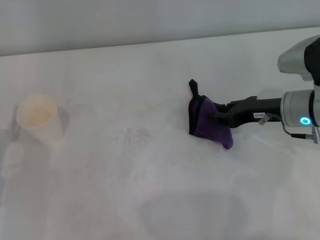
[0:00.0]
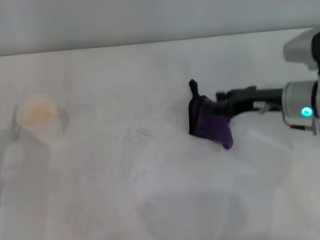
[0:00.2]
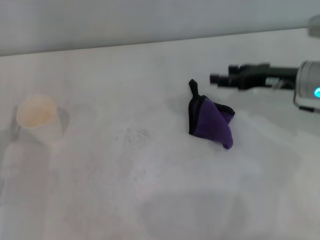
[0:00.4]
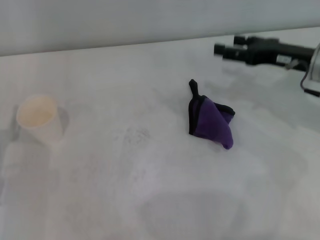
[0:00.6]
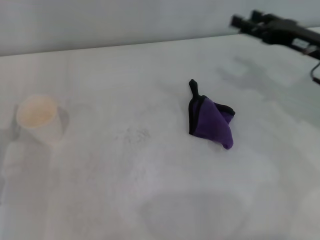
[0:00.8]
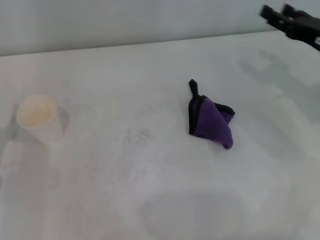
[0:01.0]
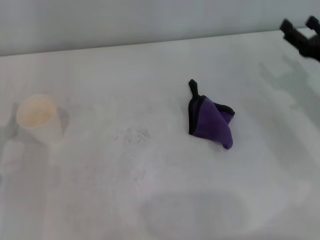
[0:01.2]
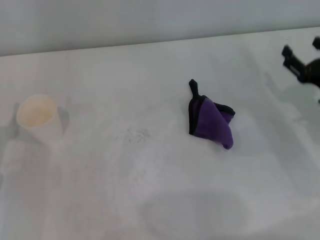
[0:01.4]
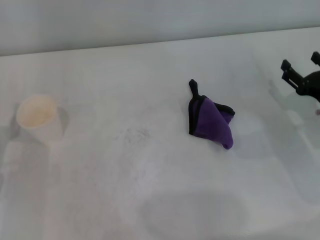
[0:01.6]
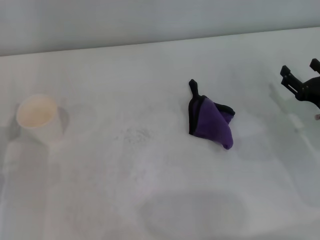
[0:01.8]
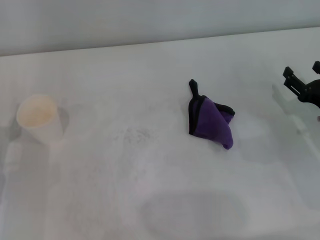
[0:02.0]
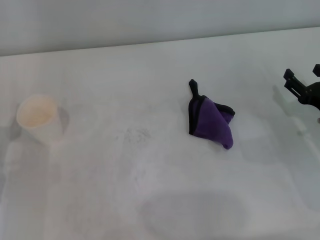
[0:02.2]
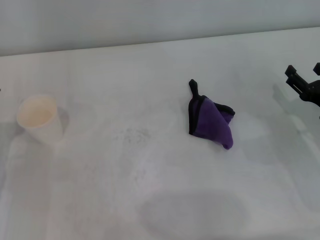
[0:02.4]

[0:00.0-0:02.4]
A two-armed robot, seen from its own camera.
0:00.0 to 0:01.2: The right gripper moves to the right, about 10 cm, and opens.
0:01.2 to 0:02.4: The right gripper ends up roughly 5 cm from where it was.

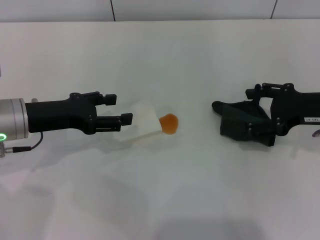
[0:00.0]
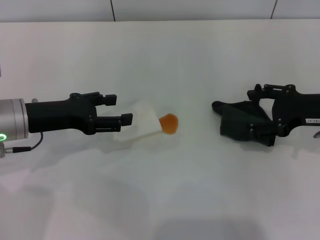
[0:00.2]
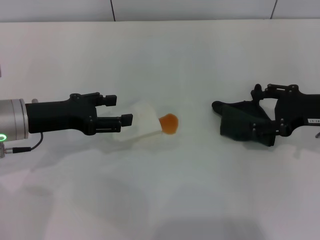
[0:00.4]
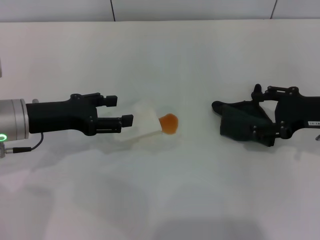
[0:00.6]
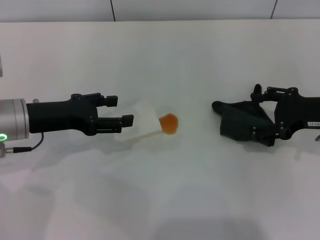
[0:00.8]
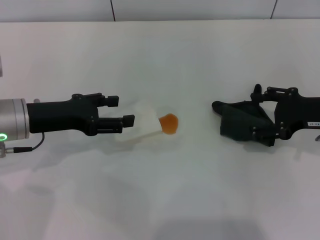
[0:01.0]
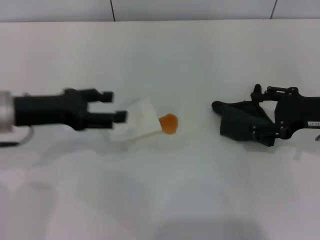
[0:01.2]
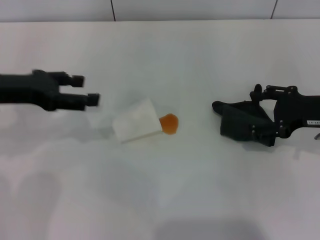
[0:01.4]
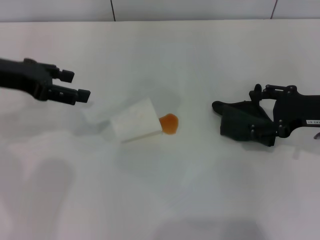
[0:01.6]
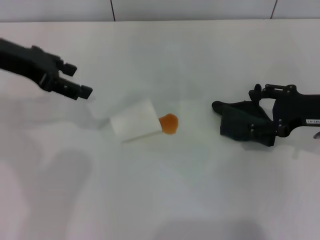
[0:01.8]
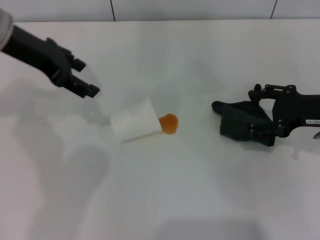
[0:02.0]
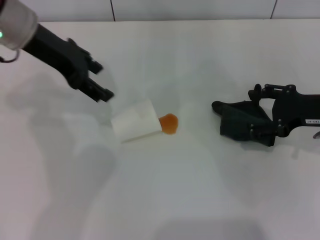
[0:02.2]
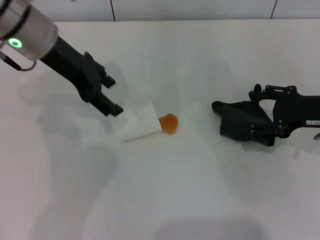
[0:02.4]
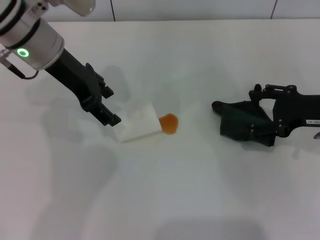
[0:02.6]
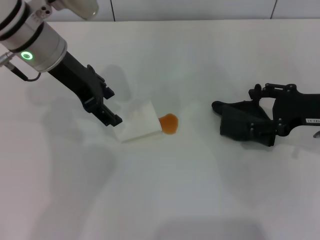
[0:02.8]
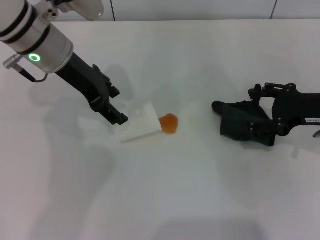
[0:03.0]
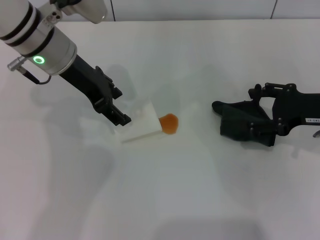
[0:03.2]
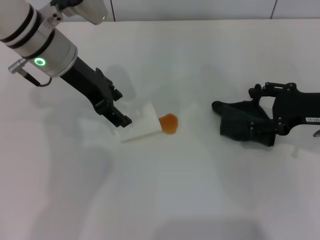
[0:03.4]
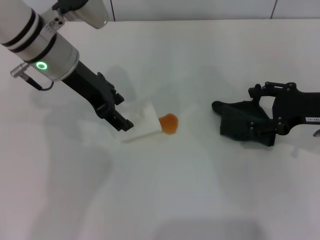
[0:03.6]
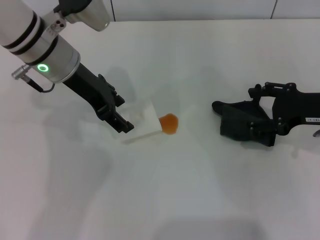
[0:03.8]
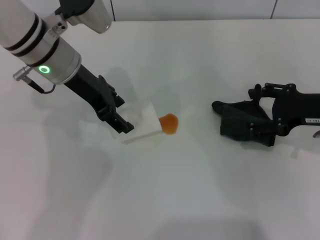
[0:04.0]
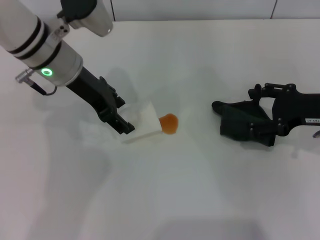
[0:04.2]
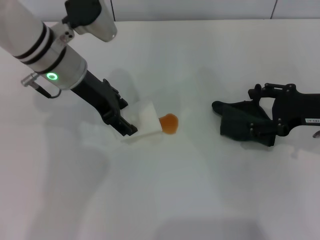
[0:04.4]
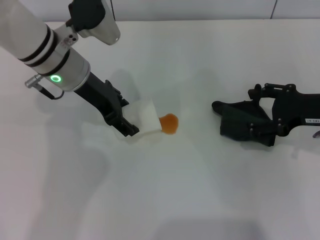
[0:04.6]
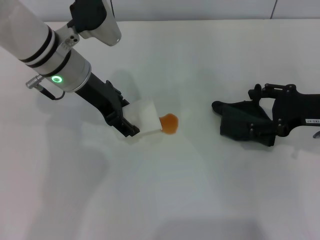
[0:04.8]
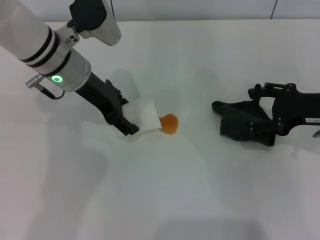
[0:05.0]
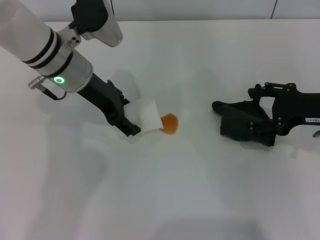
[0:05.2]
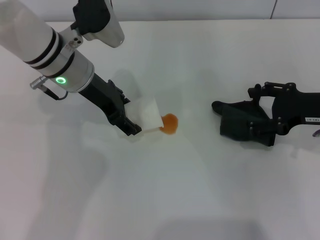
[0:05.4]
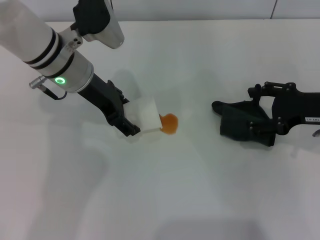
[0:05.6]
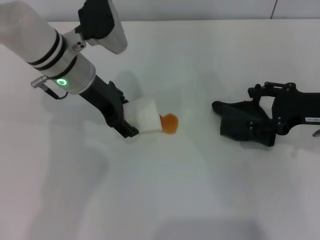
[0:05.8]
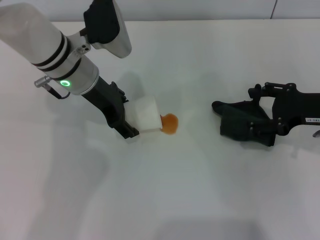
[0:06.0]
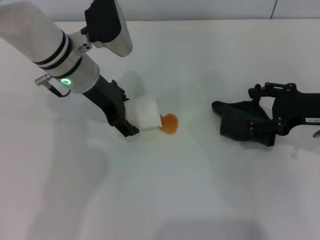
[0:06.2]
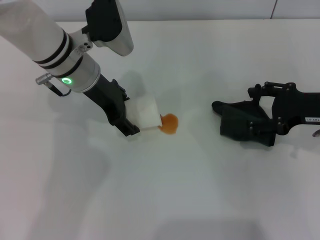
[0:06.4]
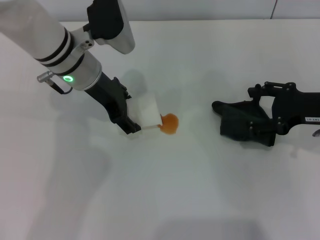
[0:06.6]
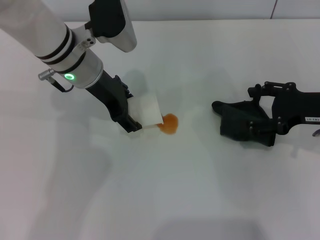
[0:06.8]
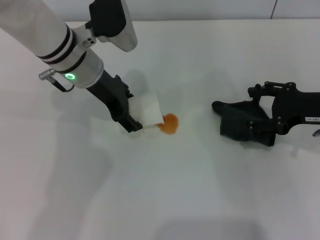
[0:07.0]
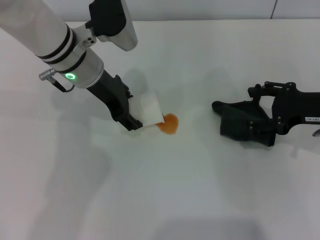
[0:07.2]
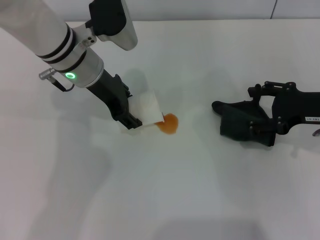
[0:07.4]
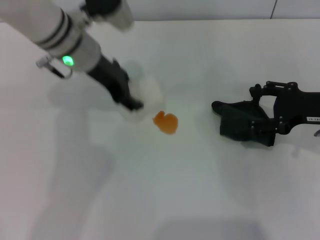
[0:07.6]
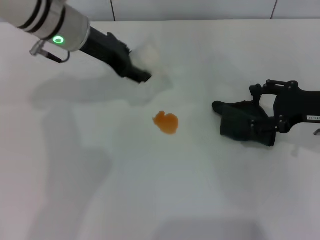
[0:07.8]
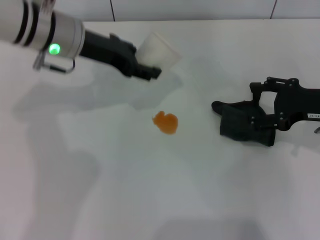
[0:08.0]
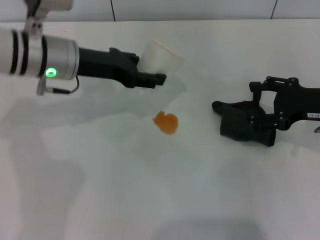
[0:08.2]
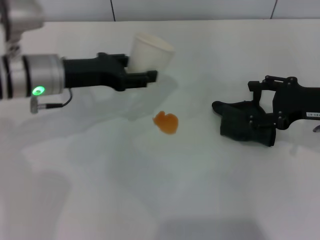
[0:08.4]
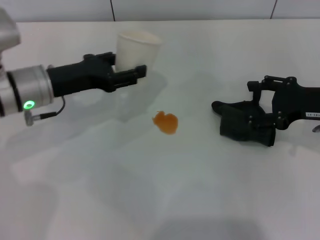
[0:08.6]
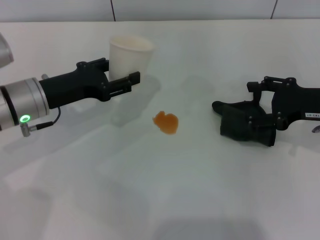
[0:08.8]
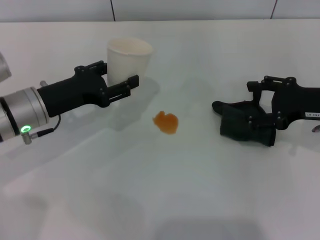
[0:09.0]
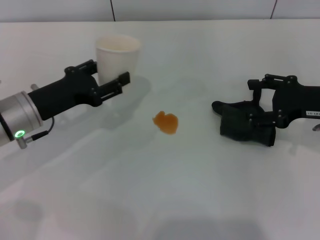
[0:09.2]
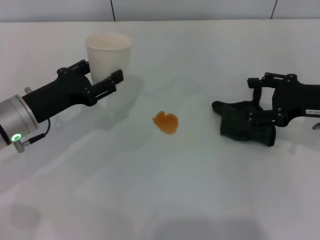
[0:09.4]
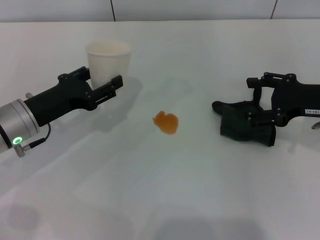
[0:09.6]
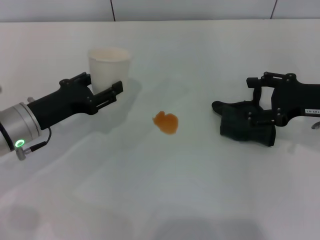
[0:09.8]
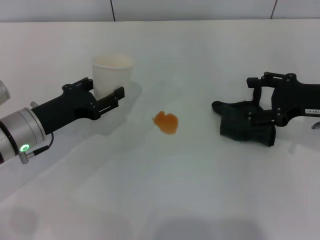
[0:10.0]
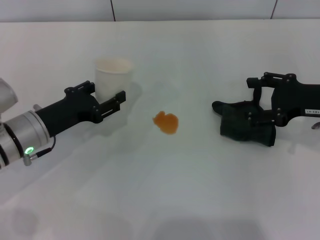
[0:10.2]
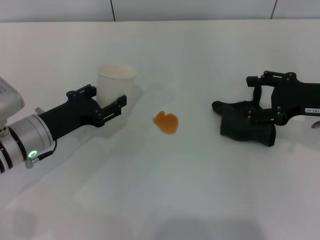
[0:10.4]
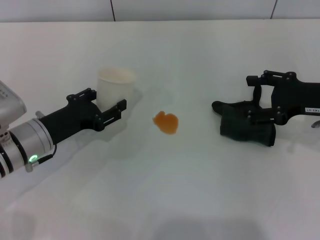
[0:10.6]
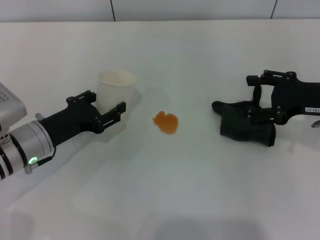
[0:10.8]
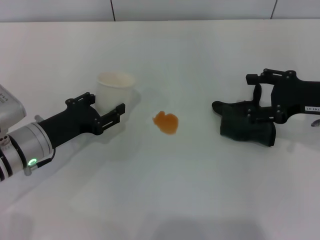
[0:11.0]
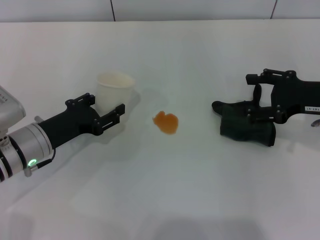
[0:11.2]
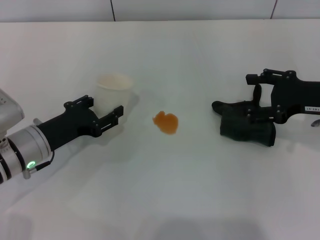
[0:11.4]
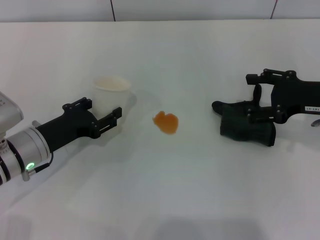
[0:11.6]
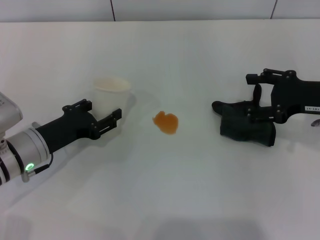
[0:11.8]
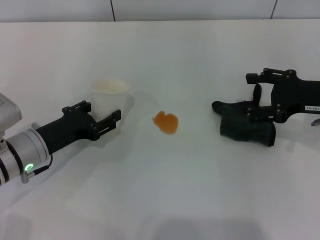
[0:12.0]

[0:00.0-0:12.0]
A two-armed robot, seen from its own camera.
Step, 0:00.0 to 0:07.2: Grasp the paper cup with the left gripper.
0:00.0 to 0:01.6: The left gripper goes about 10 cm upward.
0:01.6 to 0:03.0: The left gripper travels to the right and forward by approximately 15 cm.
0:03.0 to 0:06.0: The grippers move only a little.
0:06.0 to 0:07.6: The left gripper closes up.
0:07.6 to 0:09.0: The left gripper heads to the left, backward and downward, covering some 15 cm.
0:09.0 to 0:10.4: The grippers stay close to where they were, moving slightly.
0:10.4 to 0:12.0: The grippers move only a little.

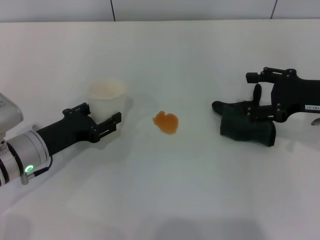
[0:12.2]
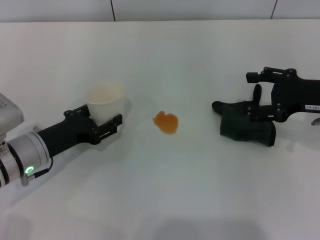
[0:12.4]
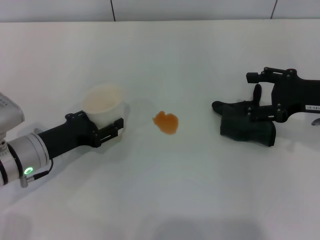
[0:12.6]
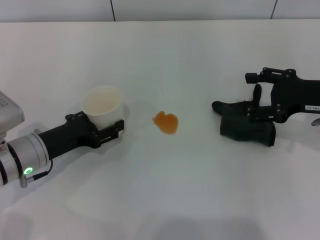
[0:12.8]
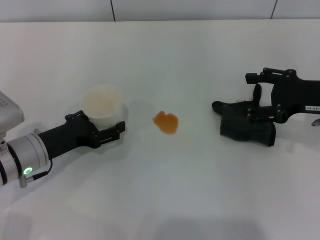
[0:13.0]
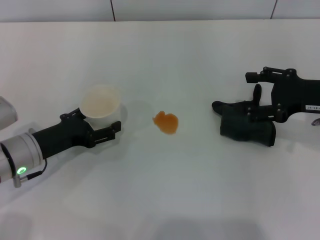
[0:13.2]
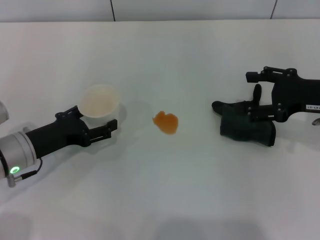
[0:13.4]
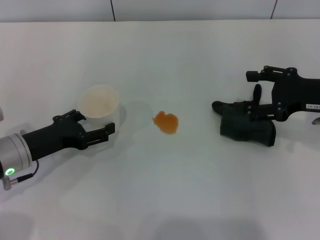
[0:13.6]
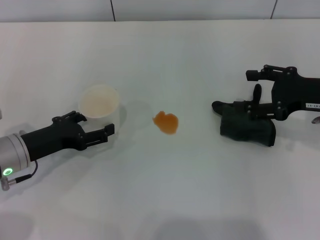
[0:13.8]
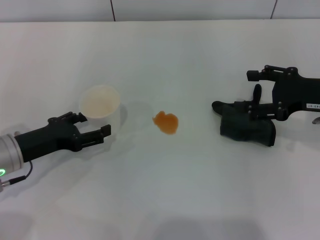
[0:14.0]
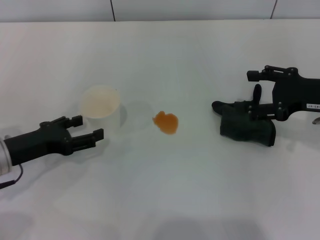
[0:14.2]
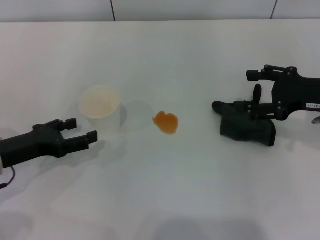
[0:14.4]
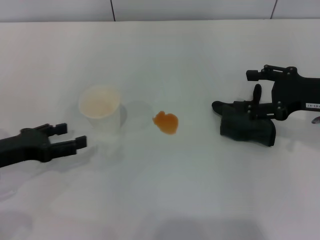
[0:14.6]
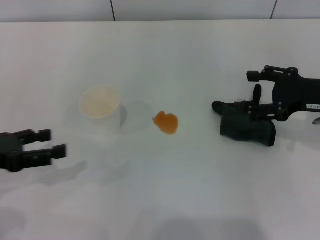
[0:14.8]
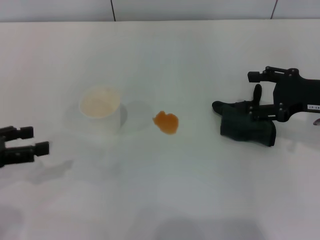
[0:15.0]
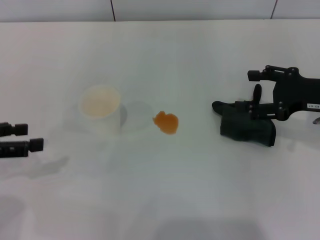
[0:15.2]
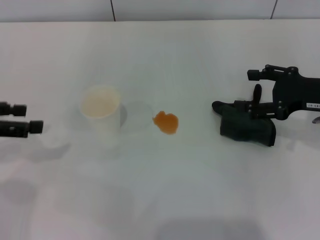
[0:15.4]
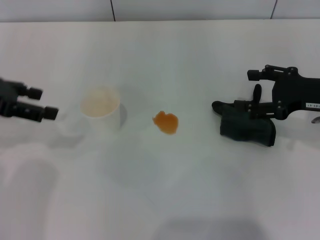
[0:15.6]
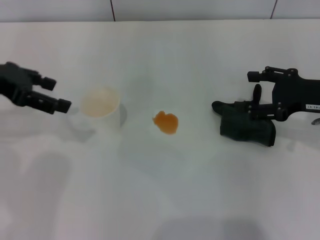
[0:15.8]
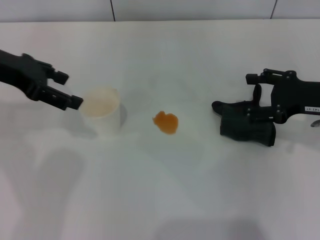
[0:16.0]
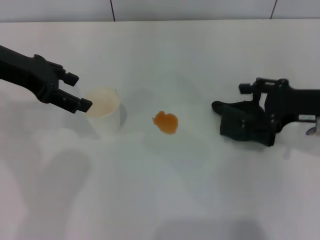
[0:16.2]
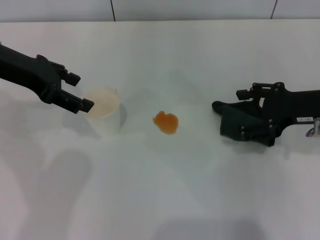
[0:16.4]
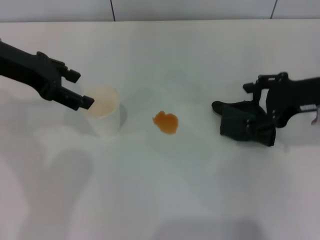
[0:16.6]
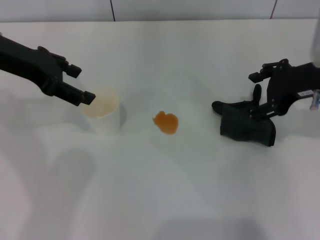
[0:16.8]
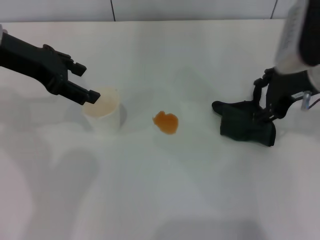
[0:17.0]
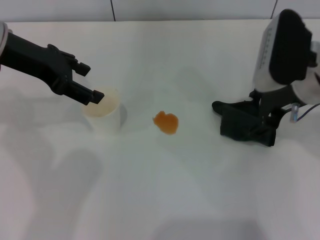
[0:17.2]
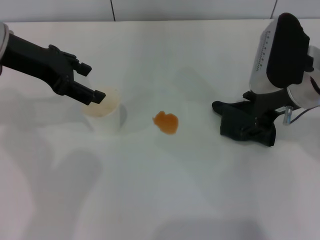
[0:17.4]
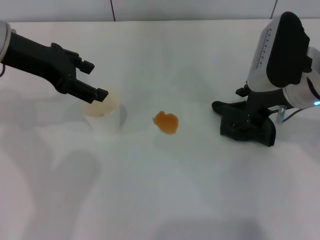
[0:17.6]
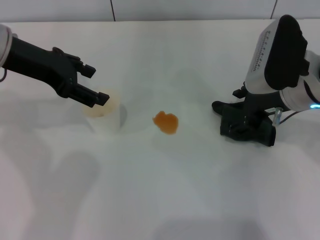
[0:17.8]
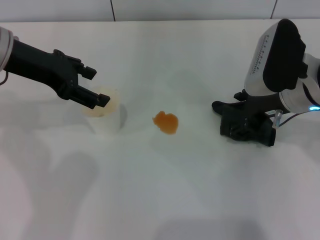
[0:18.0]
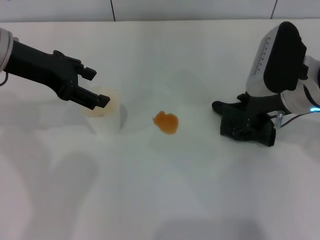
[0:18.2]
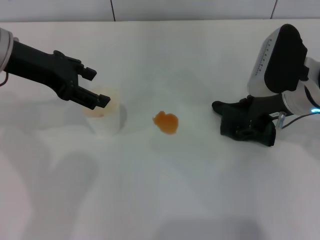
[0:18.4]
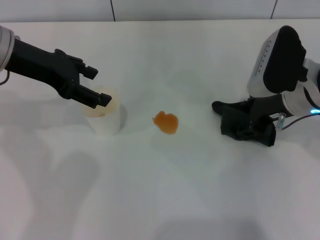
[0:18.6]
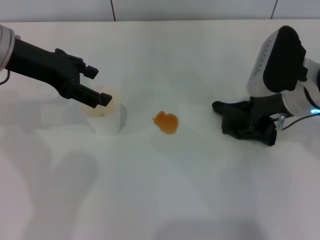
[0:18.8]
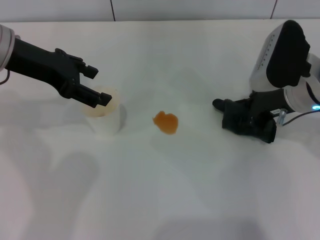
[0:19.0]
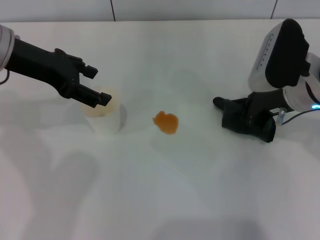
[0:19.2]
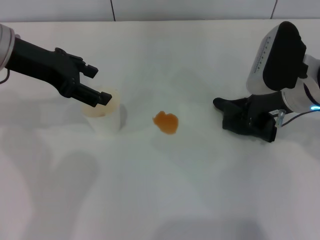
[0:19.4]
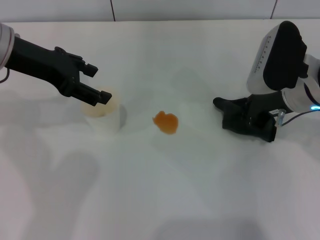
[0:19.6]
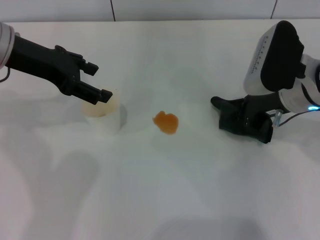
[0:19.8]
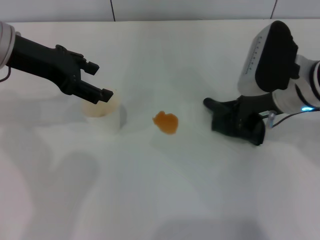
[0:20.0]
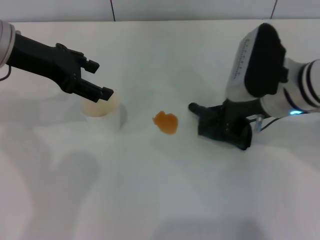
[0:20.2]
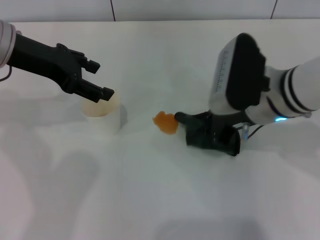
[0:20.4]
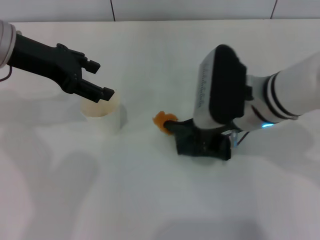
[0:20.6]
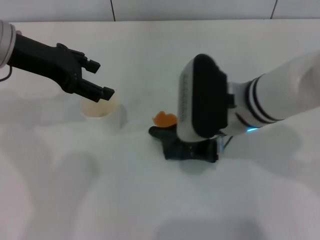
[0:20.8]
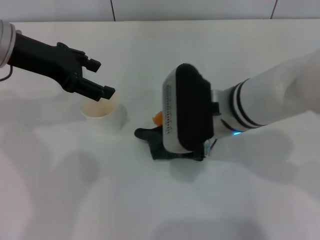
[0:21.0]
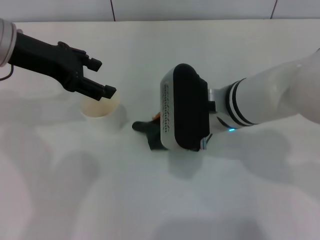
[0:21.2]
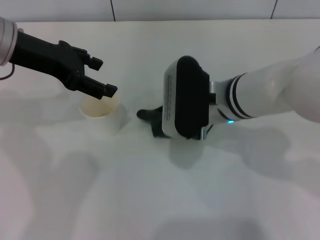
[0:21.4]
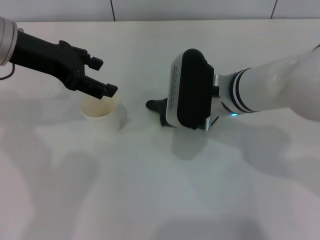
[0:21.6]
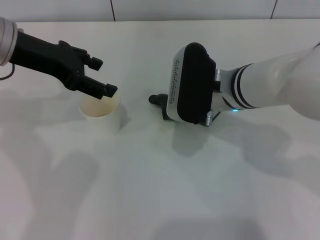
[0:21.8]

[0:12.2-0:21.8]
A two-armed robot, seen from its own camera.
Step, 0:12.2 to 0:14.2: Stand the paper cup upright with the left gripper.
Step, 0:14.4 to 0:19.4: Grasp the rag with the right gripper.
0:12.2 to 0:13.8: The left gripper opens.
0:13.8 to 0:15.4: The left gripper is displaced upward and to the left by roughly 15 cm.
0:15.4 to 0:17.0: The right gripper moves to the left and upward, roughly 10 cm; the left gripper is displaced to the right, forward and upward by approximately 15 cm.
0:17.0 to 0:18.6: The right gripper travels downward by roughly 5 cm.
0:18.6 to 0:20.2: The right gripper closes.
0:20.2 to 0:21.8: The right gripper moves to the left, roughly 10 cm.
